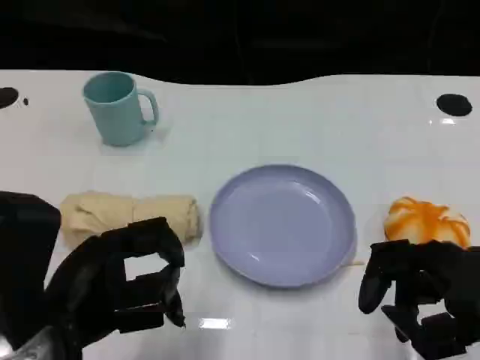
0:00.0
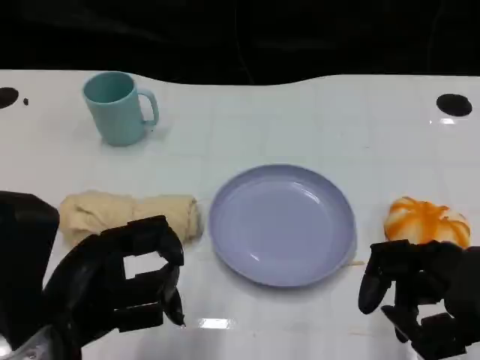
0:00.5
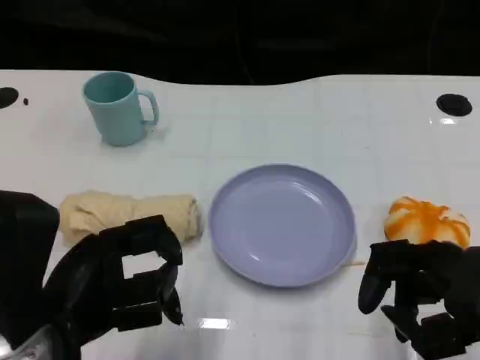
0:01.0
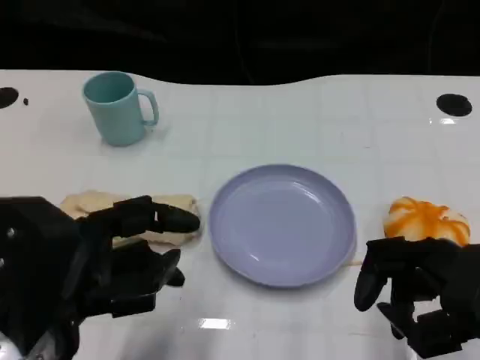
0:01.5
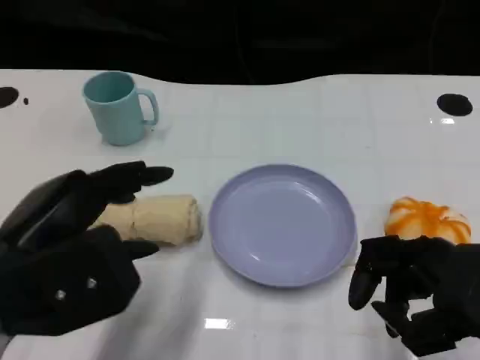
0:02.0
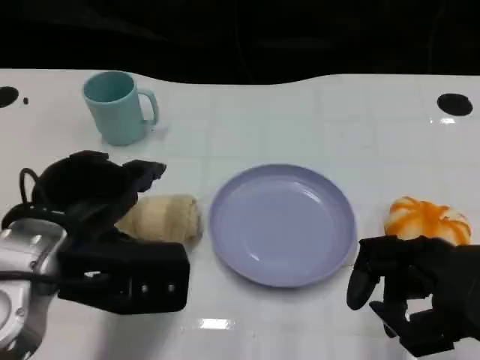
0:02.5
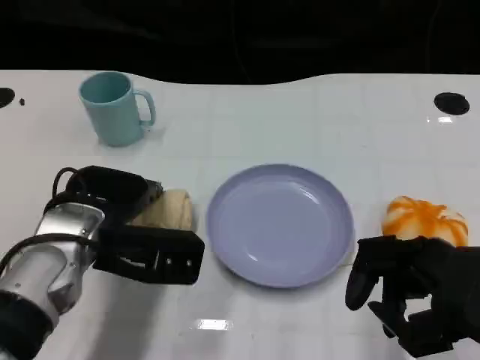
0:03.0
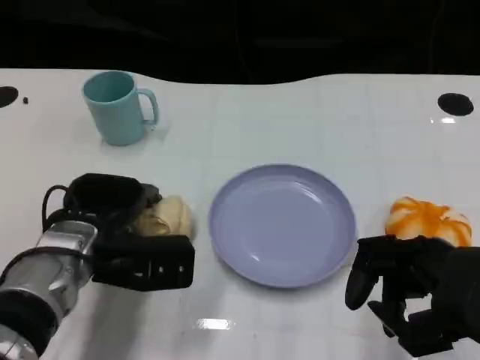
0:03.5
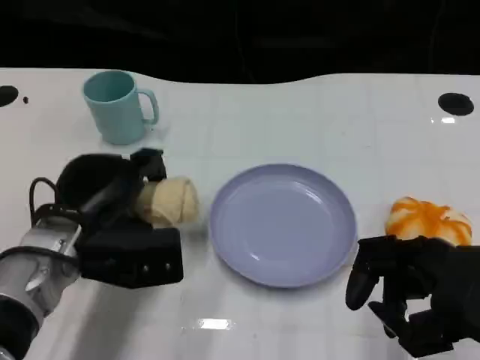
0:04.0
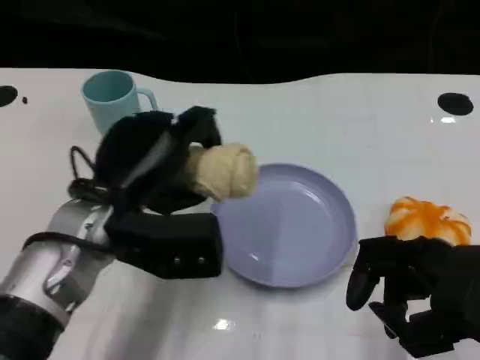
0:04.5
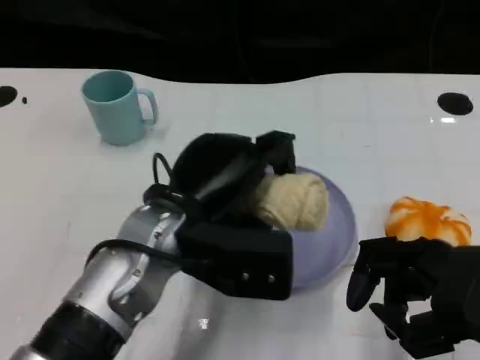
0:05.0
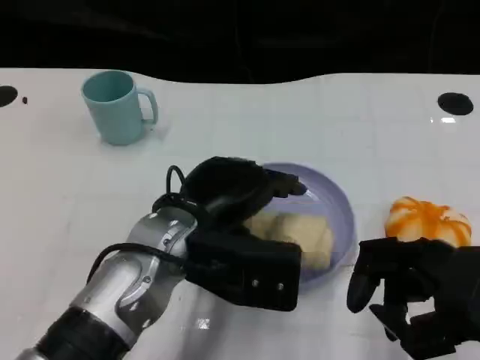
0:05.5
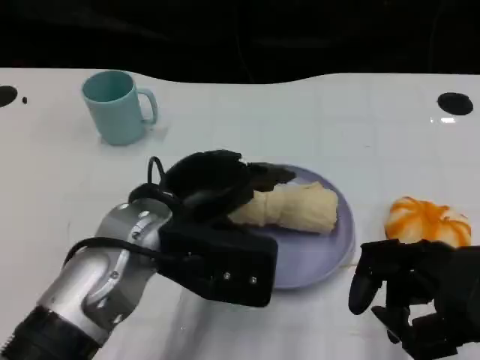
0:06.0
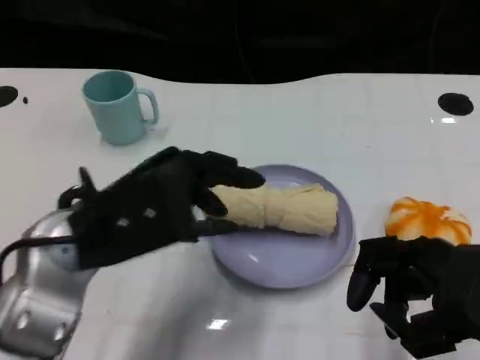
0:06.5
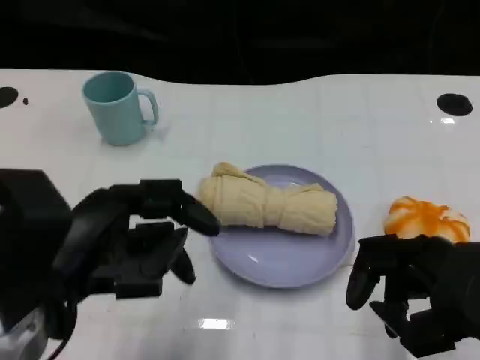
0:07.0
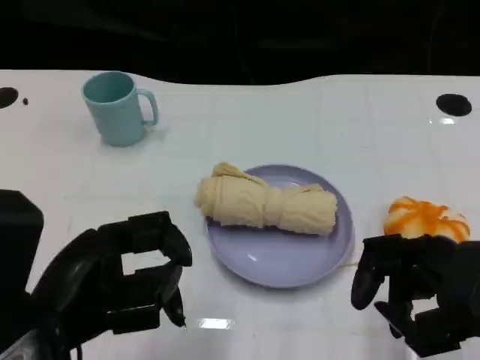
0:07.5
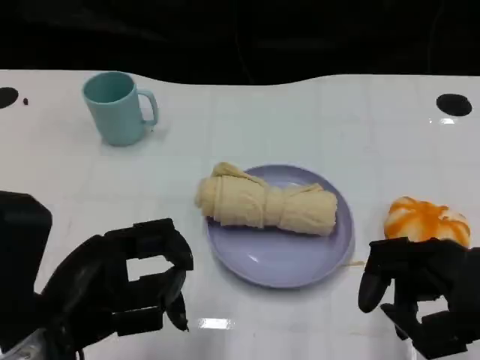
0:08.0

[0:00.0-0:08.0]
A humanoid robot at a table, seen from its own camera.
Task of the whole recording: Grasp the towel on the left side of the plate with the left hand and place it into the plate.
0:02.0 to 0:04.0: The left hand heads forward and downward, covering roughly 15 cm.
0:04.0 to 0:06.0: The left hand travels to the right and upward by roughly 10 cm.
0:06.0 to 0:08.0: The left hand heads to the left and backward, covering some 15 cm.

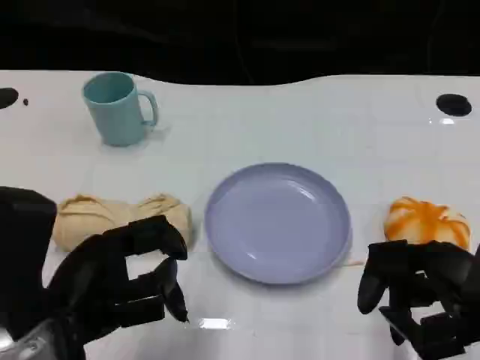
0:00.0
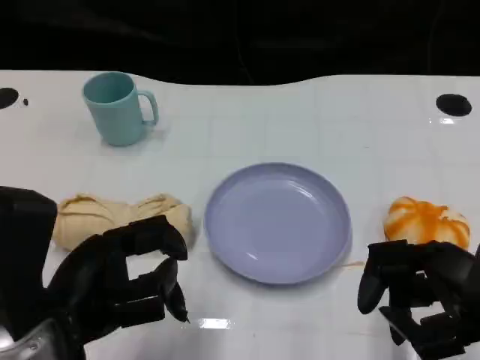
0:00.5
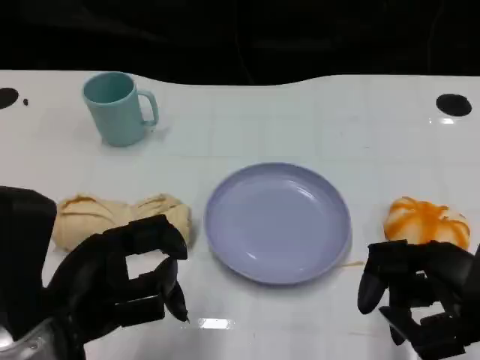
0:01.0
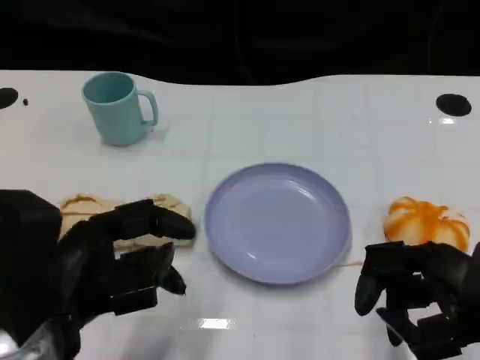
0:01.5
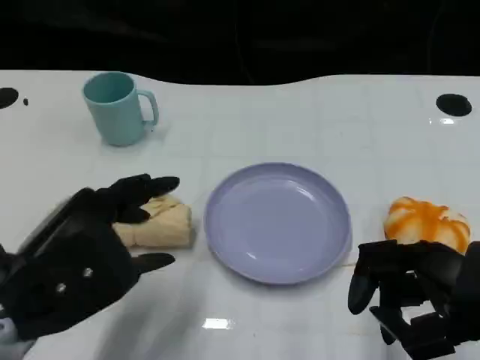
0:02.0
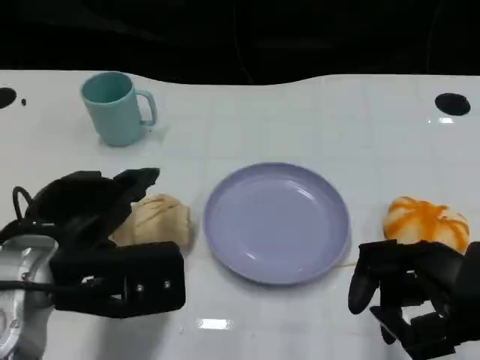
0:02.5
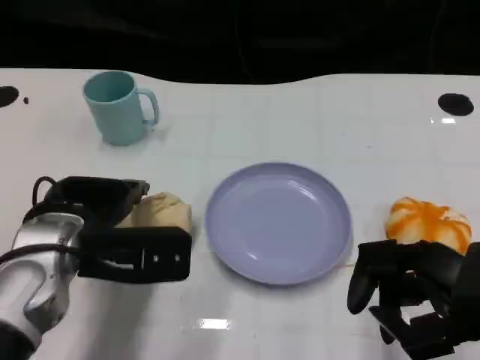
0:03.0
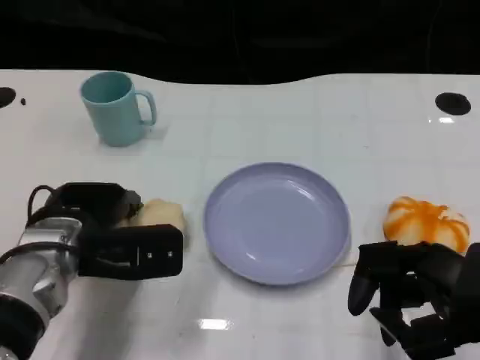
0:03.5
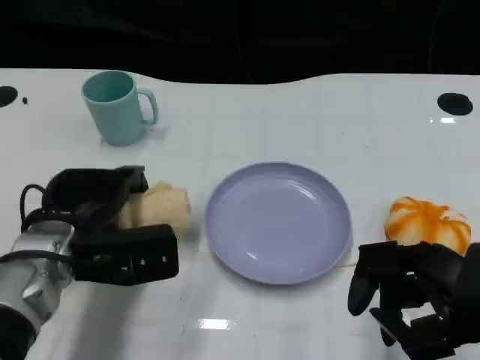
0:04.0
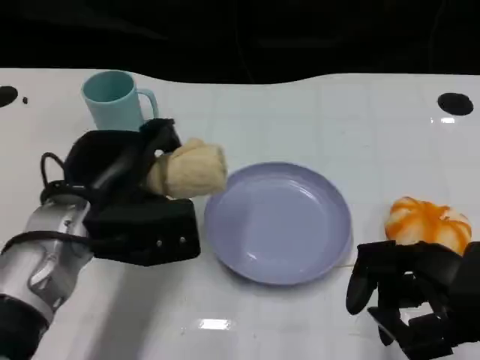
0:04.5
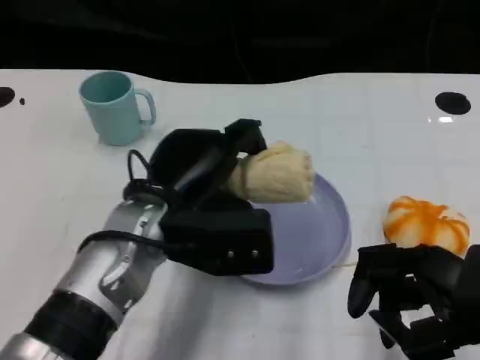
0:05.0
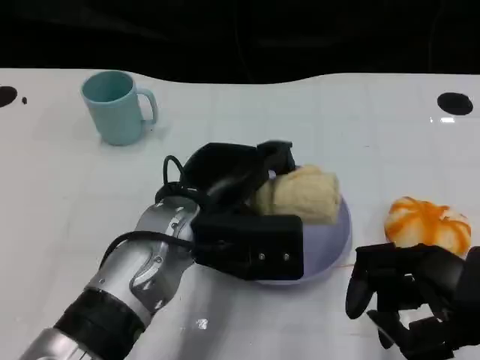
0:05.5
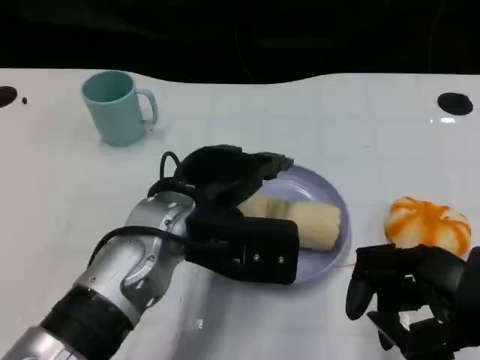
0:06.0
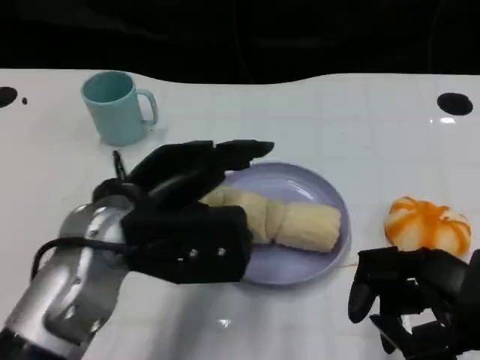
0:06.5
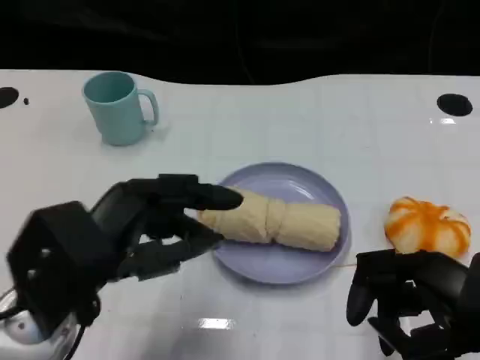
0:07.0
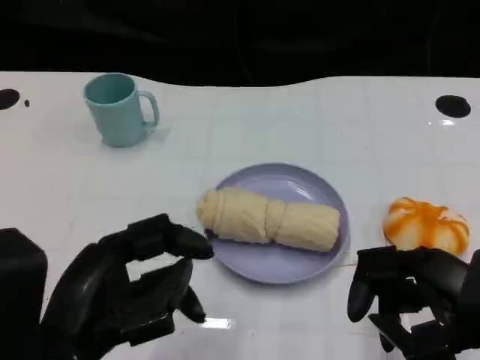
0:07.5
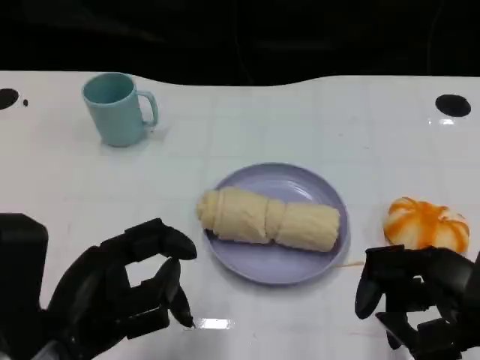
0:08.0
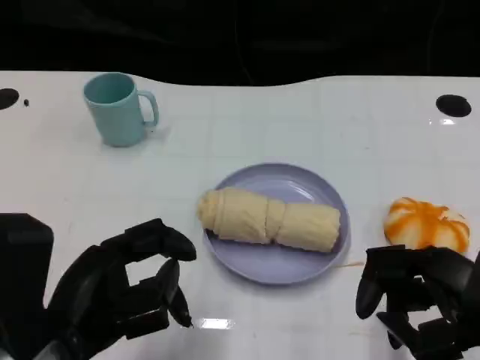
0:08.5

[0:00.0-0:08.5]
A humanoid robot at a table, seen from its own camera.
Task of the whole recording: Grasp the towel on the left side of the plate with the left hand and place it into the plate.
0:02.0 to 0:04.0: The left hand heads forward and downward, covering some 10 cm.
0:04.0 to 0:06.5: The left hand heads upward and to the right, covering roughly 10 cm.
0:06.5 to 0:08.5: The left hand travels backward and to the left by approximately 10 cm.

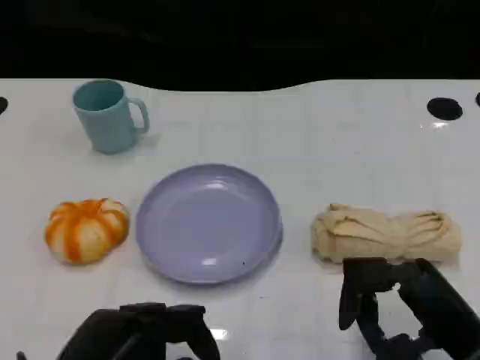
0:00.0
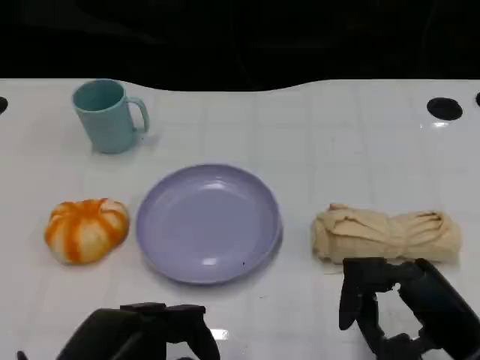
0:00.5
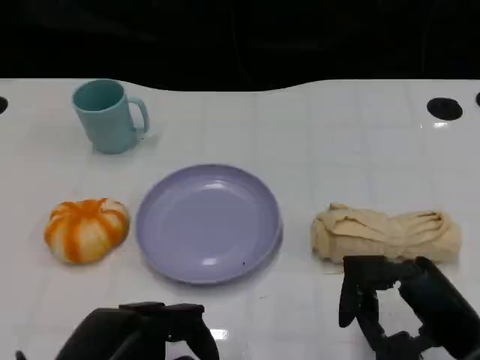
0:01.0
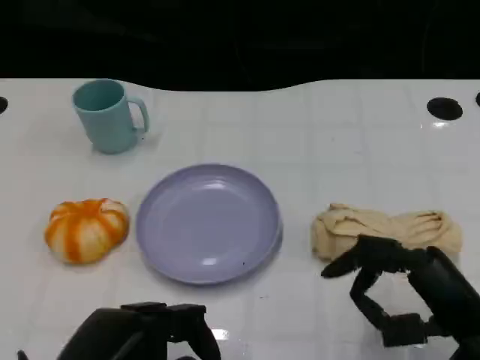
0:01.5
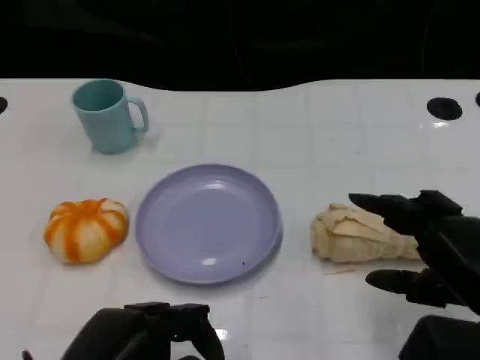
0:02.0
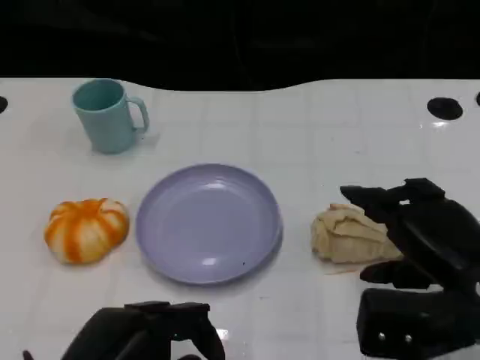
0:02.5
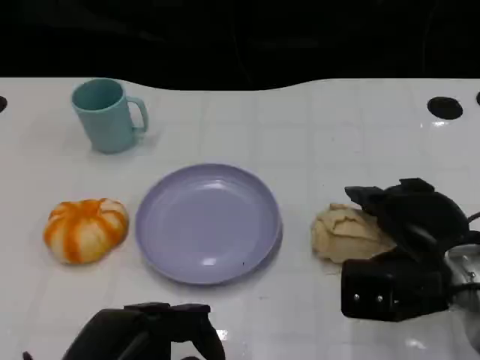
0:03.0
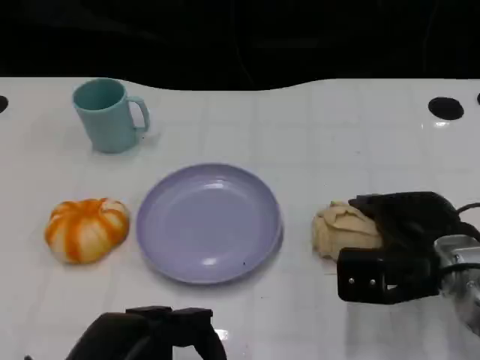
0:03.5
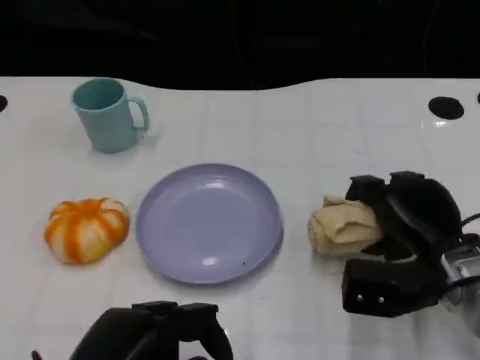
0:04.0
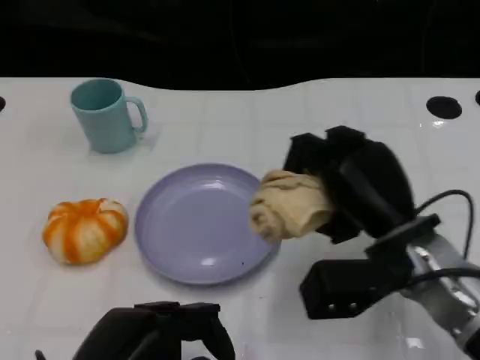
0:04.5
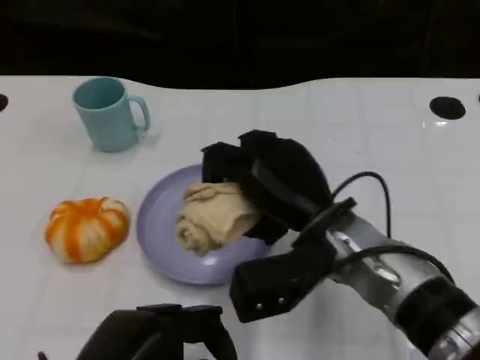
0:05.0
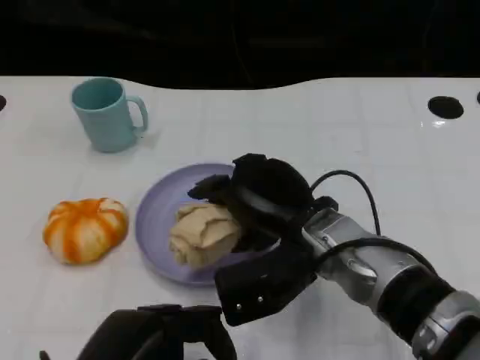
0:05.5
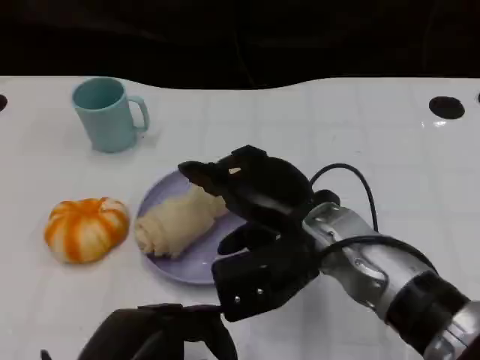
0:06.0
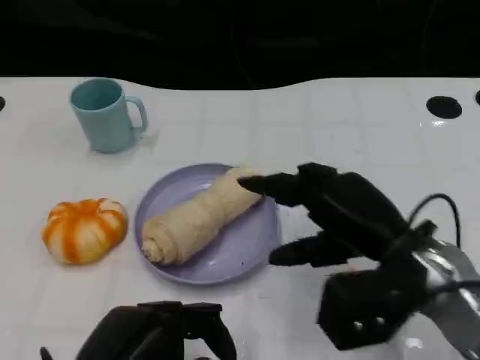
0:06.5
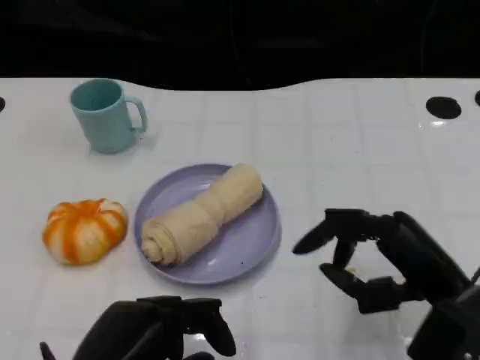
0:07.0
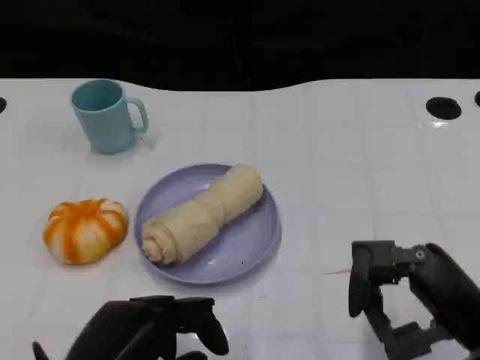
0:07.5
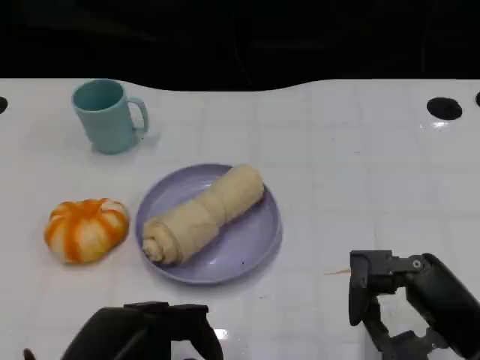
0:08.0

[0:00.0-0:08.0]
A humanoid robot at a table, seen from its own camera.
Task of the whole recording: Grasp the towel on the left side of the plate with the left hand and place it into the plate.
0:02.0 to 0:04.0: The right hand is displaced forward and downward by approximately 10 cm.
0:04.0 to 0:06.0: The right hand heads to the left and upward, covering some 15 cm.
0:06.0 to 0:08.0: The right hand shifts approximately 20 cm to the right and backward.

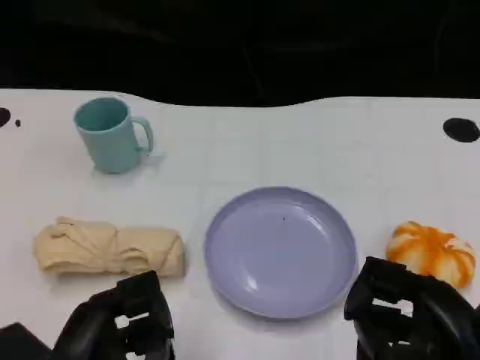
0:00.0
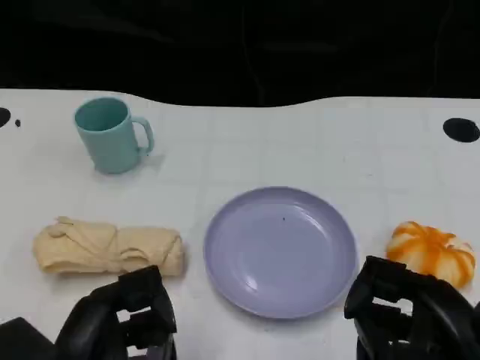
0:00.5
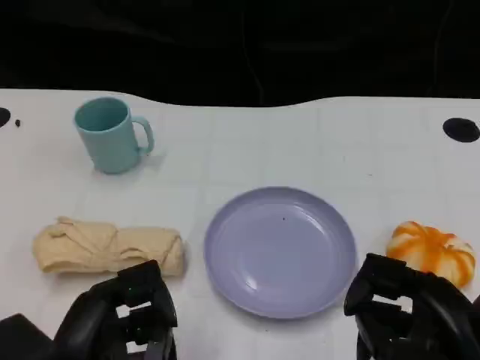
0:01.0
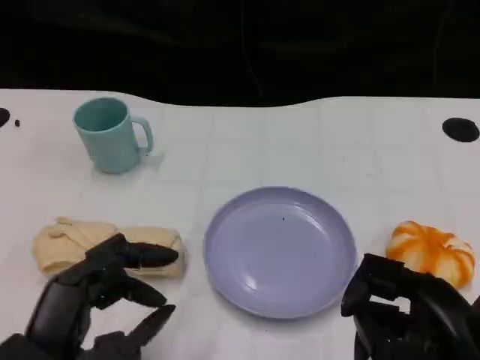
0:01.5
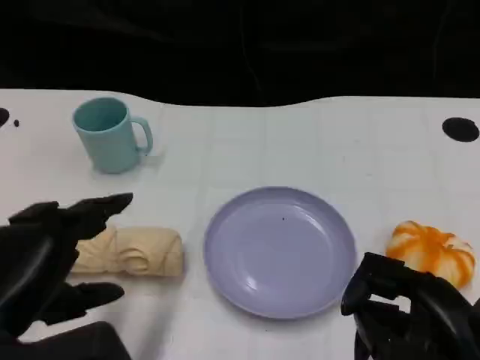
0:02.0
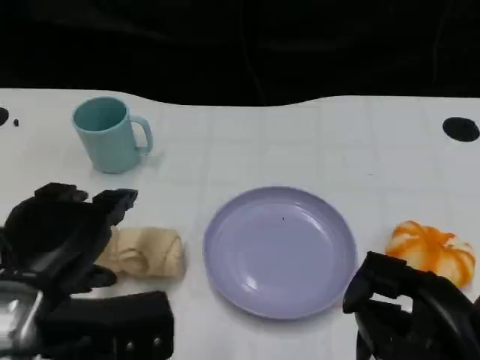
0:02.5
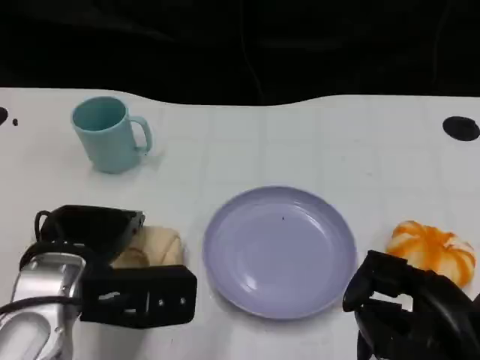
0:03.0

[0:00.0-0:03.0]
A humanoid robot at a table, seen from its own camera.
Task of the whole recording: Grasp the towel on the left side of the plate with the left hand and place it into the plate.
0:01.5 to 0:03.0: The left hand is displaced forward by roughly 10 cm.
